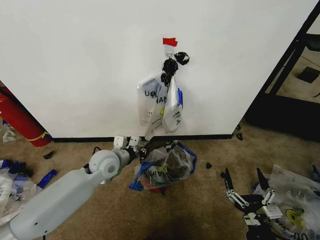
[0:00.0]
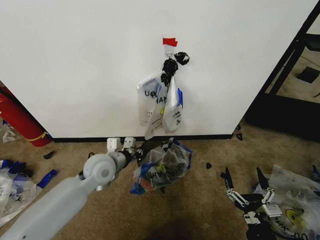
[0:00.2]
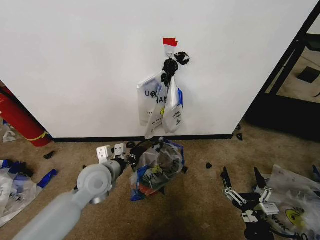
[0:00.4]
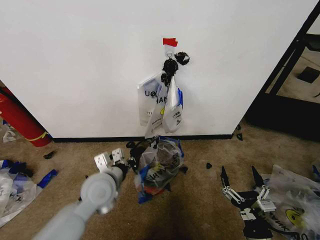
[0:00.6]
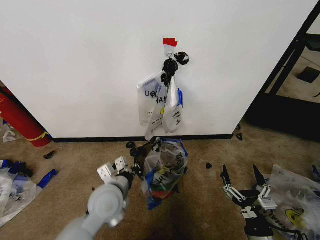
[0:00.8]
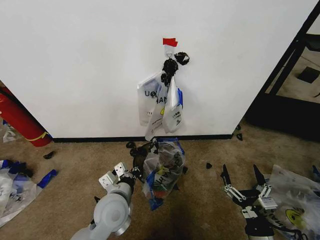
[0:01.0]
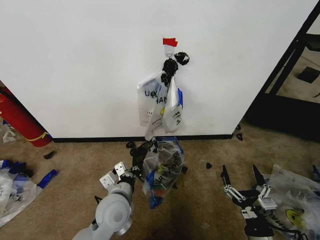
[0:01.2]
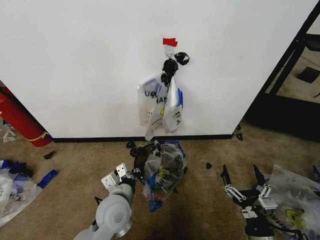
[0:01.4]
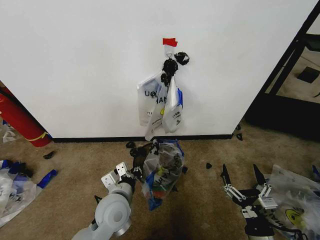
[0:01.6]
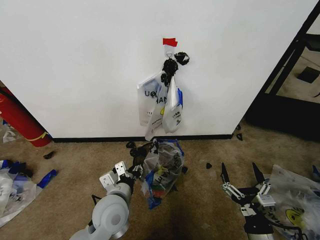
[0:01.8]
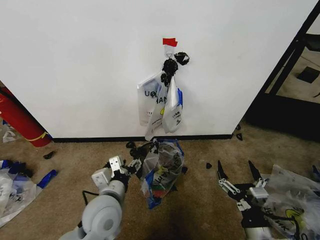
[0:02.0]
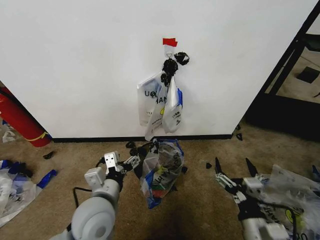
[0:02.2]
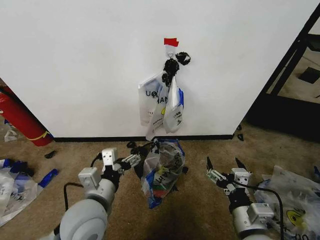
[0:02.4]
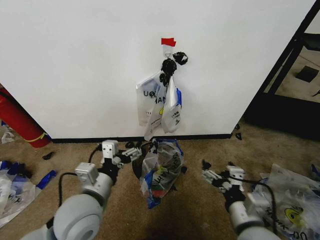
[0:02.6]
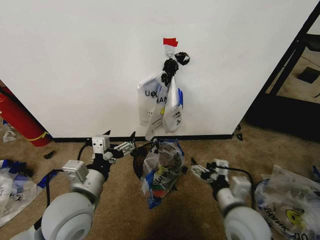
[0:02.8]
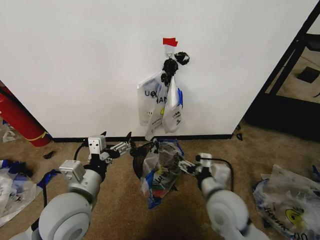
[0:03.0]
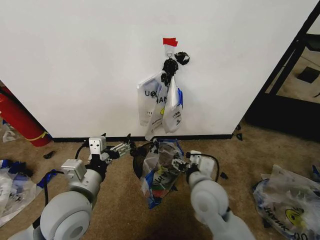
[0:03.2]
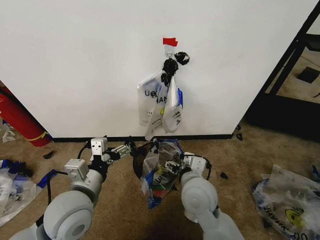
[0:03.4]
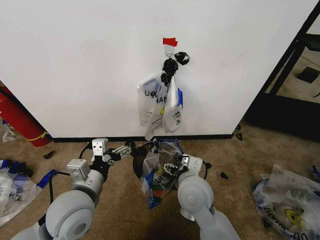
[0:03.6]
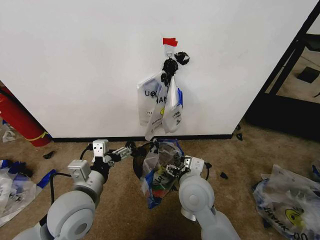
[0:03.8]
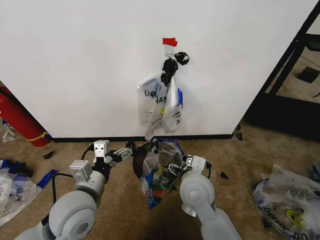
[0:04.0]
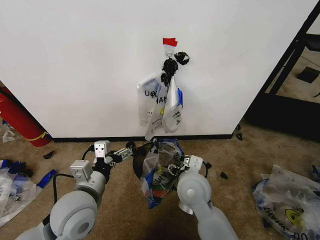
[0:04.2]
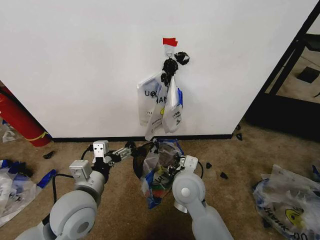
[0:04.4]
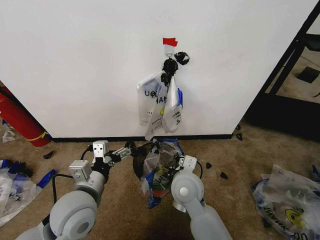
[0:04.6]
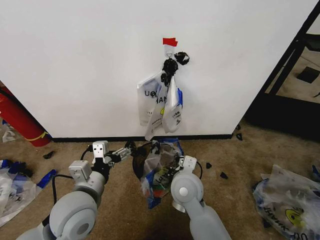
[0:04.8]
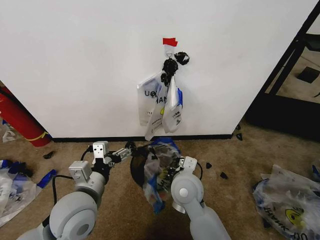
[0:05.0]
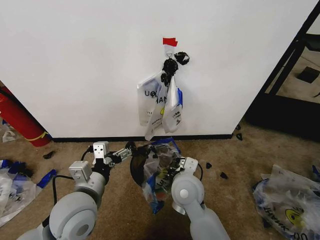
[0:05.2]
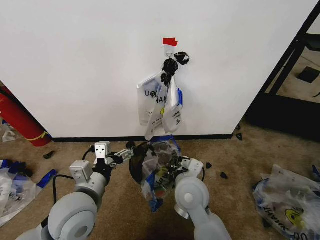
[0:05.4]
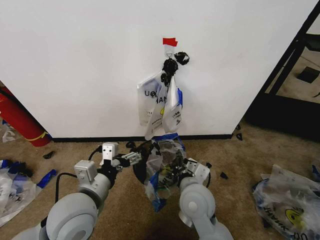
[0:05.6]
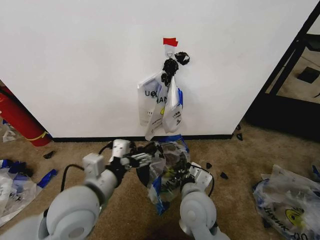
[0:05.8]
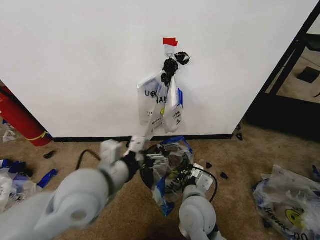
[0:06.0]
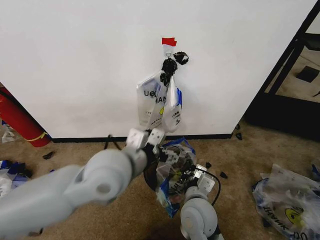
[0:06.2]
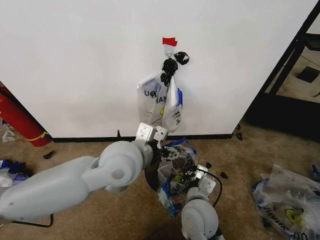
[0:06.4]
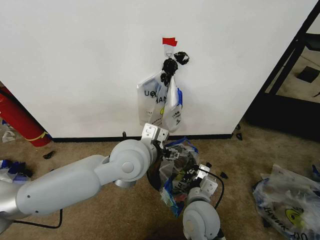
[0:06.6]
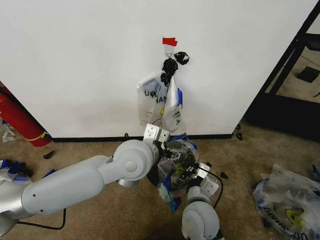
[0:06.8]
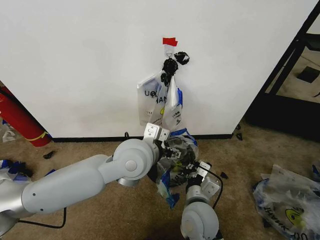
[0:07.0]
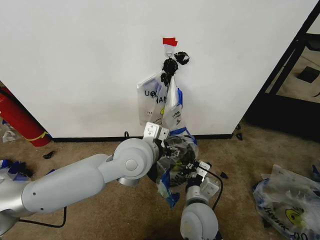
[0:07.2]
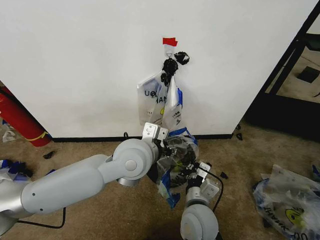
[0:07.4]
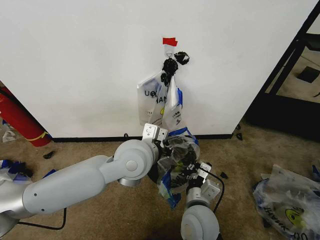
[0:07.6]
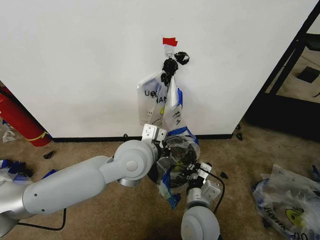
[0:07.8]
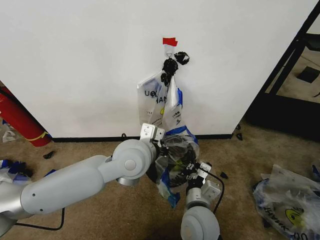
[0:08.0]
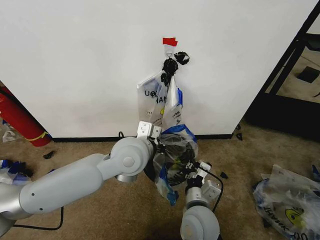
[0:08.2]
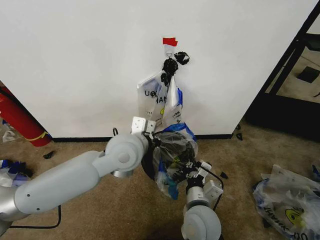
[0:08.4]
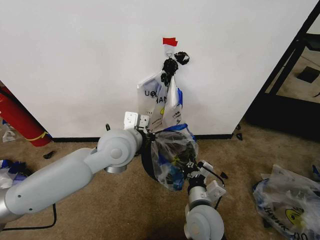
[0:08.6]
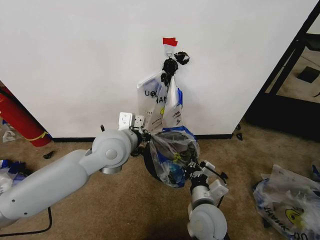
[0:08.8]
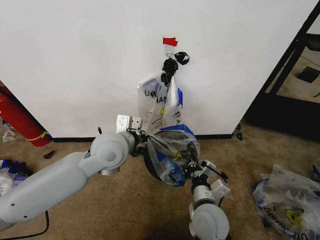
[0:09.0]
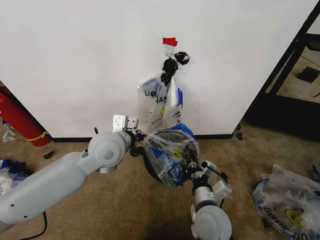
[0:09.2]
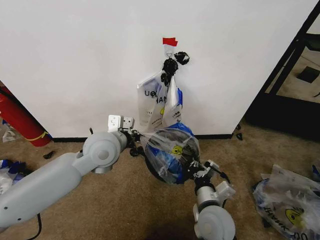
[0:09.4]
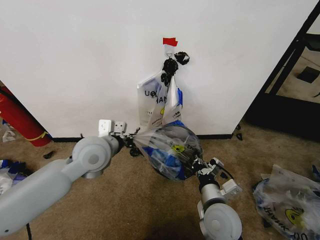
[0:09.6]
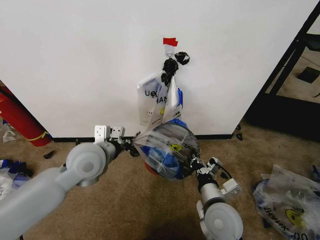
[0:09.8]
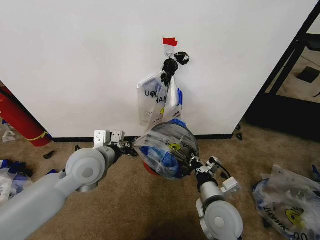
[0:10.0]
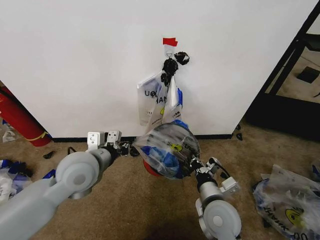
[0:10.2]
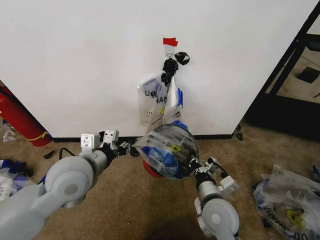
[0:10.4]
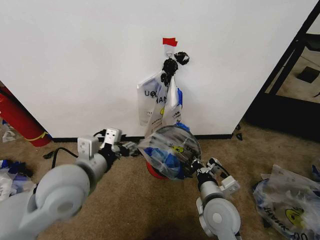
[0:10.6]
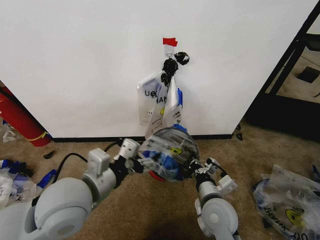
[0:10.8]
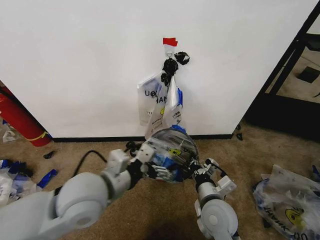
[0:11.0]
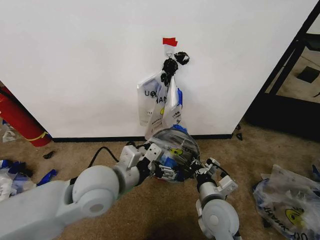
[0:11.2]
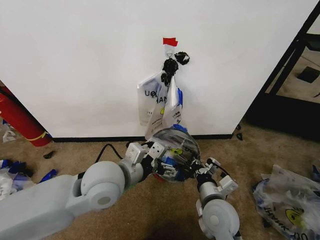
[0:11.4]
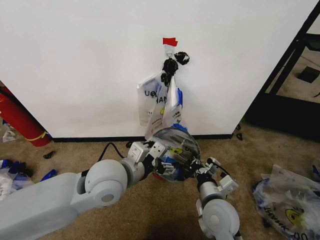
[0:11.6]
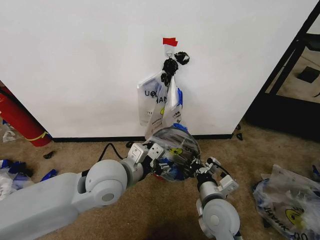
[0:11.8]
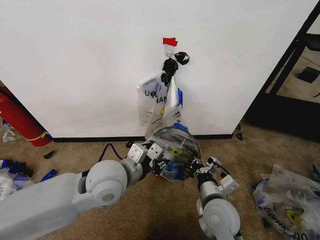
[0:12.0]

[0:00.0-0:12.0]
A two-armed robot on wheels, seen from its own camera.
Task of the whole recording: Pick up the garbage bag from the wall and place it over the trash bin.
0:00.0 to 0:01.6: The left gripper shifts approximately 15 cm backward.
0:01.6 to 0:03.0: The right gripper moves forward, to the left and upward, about 20 cm. The left gripper is displaced upward and to the left by about 15 cm, and opens.
0:03.0 to 0:04.4: The right gripper shifts approximately 10 cm to the left and forward, and closes.
0:04.4 to 0:06.0: The left gripper goes about 5 cm upward. The right gripper goes some 5 cm backward, and closes up.
0:06.0 to 0:07.6: The left gripper moves to the right and forward, about 15 cm, and closes up.
0:07.6 to 0:09.0: The left gripper is displaced to the left by roughly 5 cm, and closes up.
0:09.0 to 0:10.4: The left gripper shifts roughly 10 cm backward and to the left, and opens.
0:10.4 to 0:12.0: The left gripper heads to the right, covering about 10 cm, and opens and closes again.

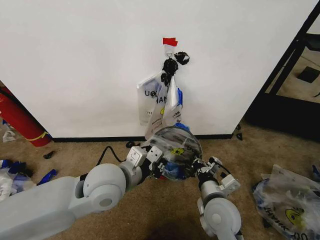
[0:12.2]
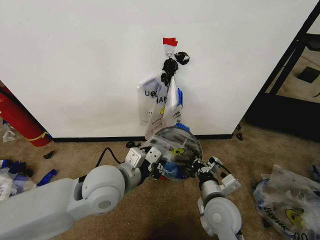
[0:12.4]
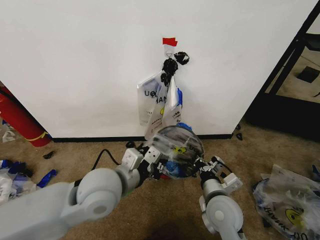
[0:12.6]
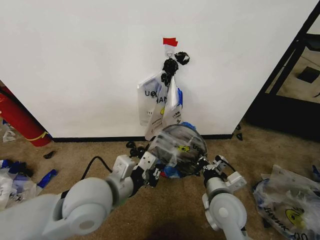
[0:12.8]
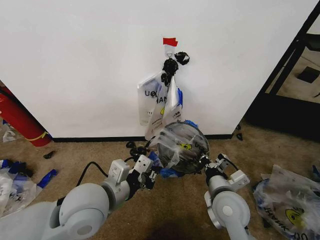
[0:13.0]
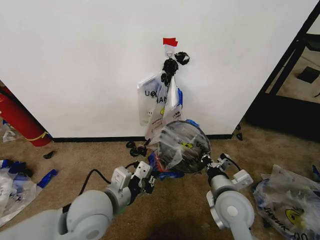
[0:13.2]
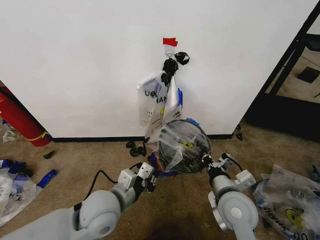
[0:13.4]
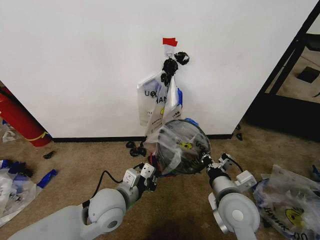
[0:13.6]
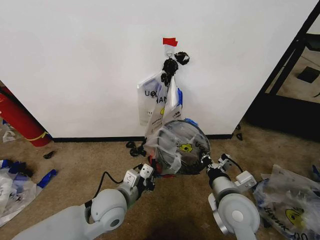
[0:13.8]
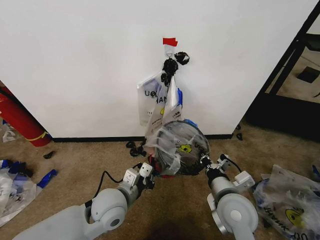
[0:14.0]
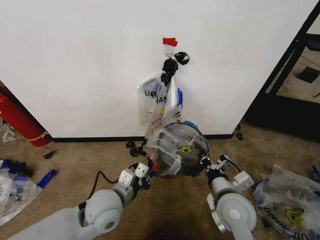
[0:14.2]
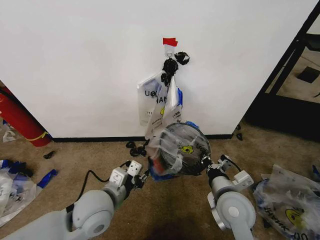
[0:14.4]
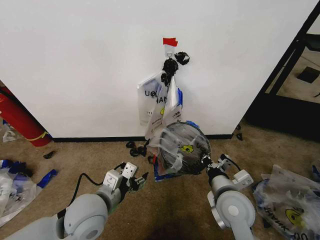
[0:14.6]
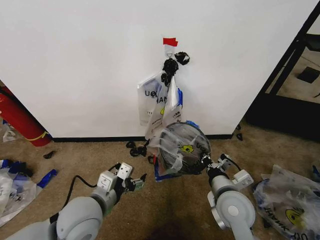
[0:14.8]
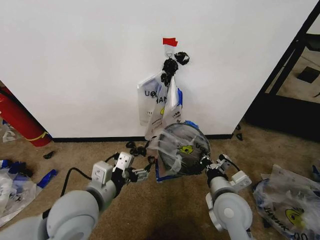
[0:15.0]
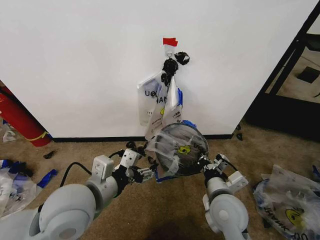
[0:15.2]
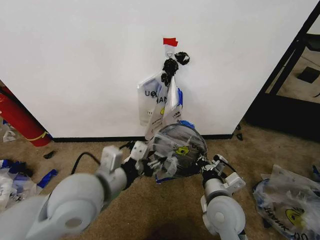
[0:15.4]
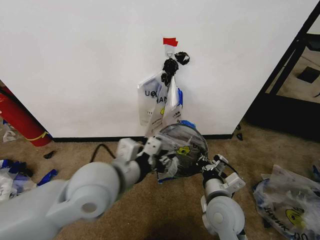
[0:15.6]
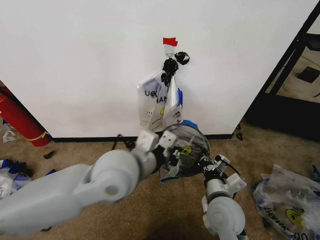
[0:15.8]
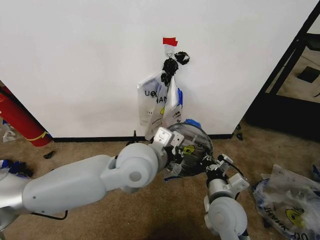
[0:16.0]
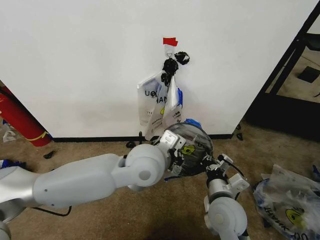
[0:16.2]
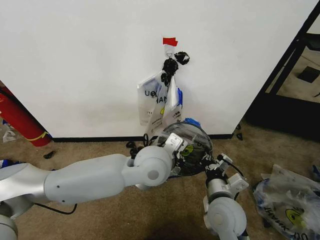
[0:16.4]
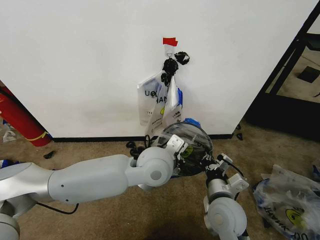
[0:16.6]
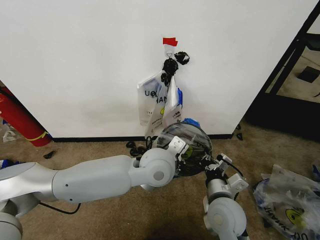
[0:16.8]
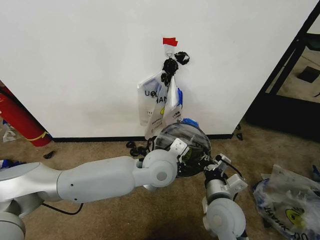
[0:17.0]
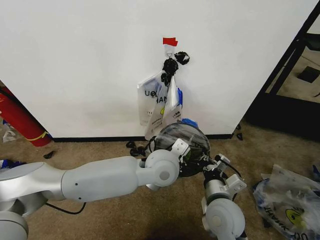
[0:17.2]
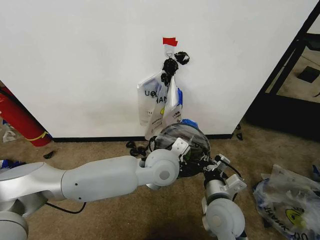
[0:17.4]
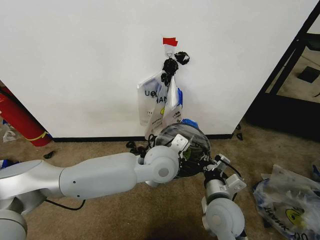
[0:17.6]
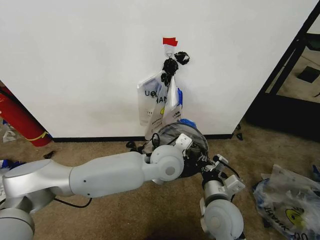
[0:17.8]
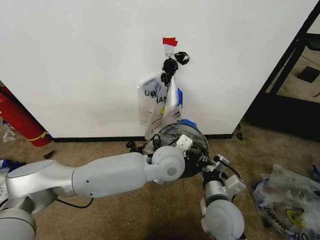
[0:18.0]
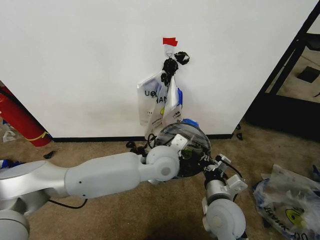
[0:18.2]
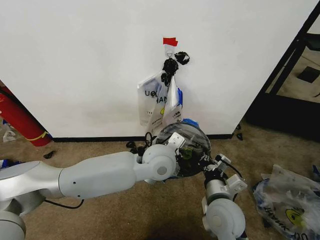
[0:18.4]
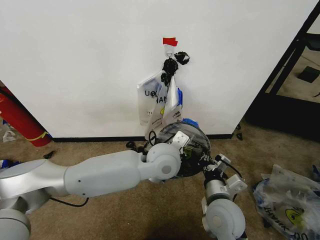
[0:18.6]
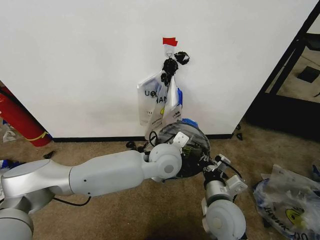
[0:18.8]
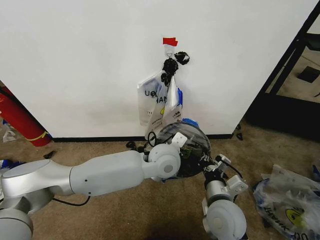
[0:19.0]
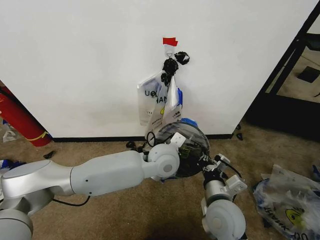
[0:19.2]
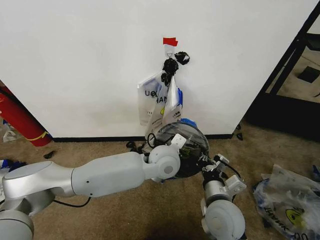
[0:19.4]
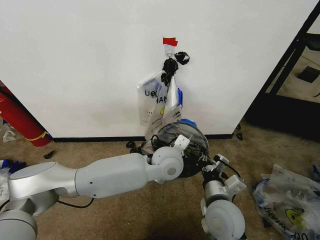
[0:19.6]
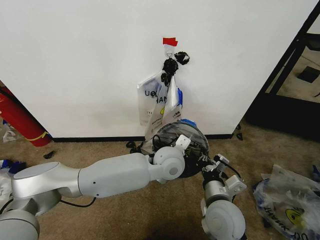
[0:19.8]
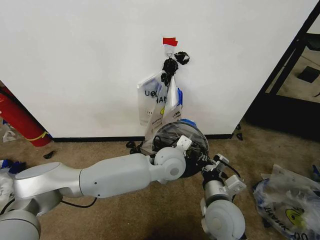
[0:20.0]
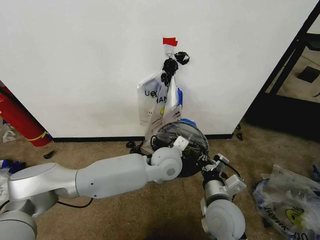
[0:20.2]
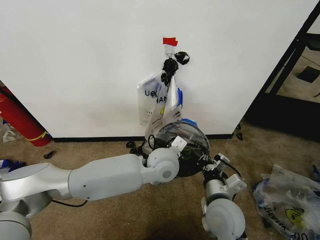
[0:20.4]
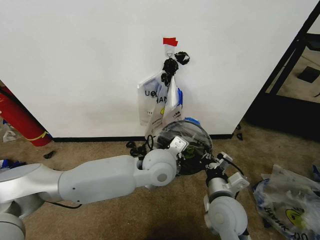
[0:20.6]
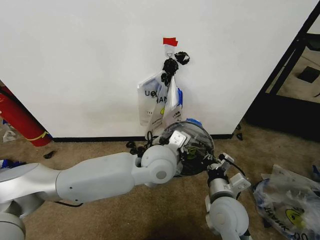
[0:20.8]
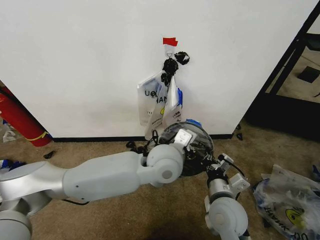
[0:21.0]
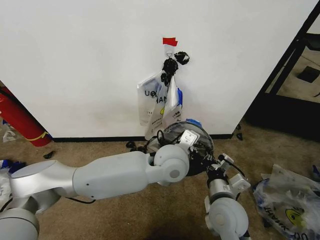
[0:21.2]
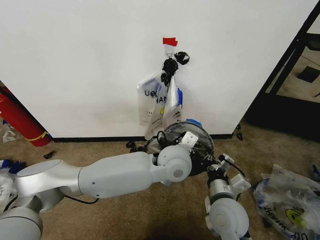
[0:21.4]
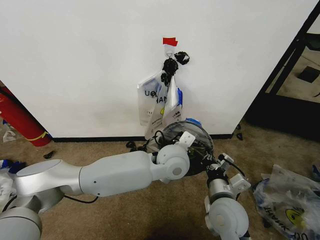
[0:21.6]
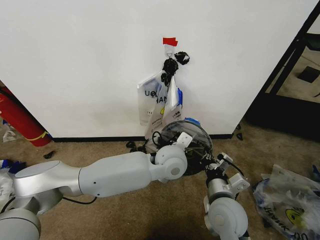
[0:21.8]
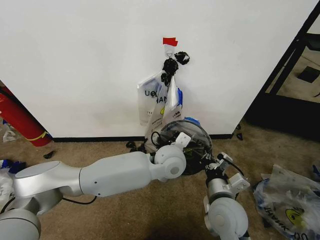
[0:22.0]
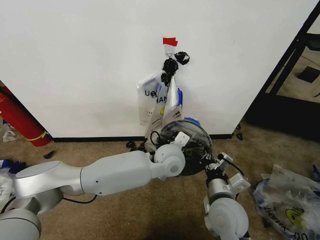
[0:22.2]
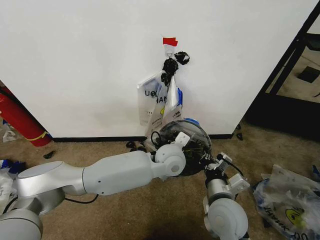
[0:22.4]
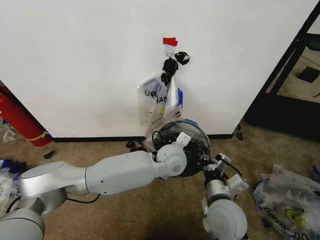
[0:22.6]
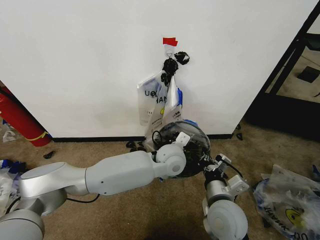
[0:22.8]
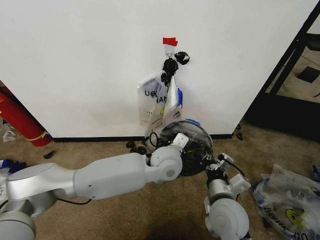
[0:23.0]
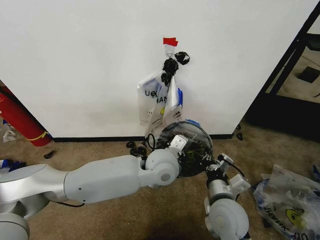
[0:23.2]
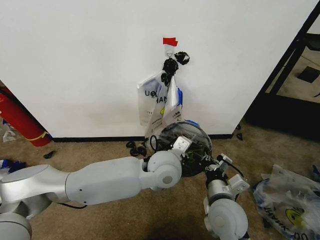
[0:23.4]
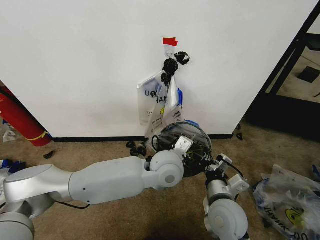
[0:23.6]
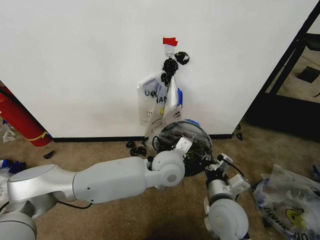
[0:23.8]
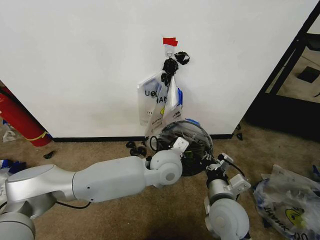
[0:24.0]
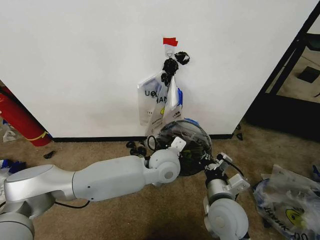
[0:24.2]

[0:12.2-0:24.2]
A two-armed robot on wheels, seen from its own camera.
Task of the whole recording: Pick up the garbage bag from the wall and place it over the trash bin.
0:12.2 to 0:13.8: The right gripper moves about 5 cm; the left gripper goes about 10 cm downward.
0:13.8 to 0:15.2: The left gripper travels upward by about 15 cm, and opens its fingers.
0:15.2 to 0:16.6: The left gripper shifts about 20 cm to the right and forward, and closes its fingers.
0:16.6 to 0:18.2: The grippers stay close to where they were, moving slightly.
0:18.2 to 0:19.8: The grippers move only a little.
0:19.8 to 0:21.2: The left gripper changes place by roughly 5 cm.
0:21.2 to 0:22.6: The left gripper goes approximately 5 cm downward.
